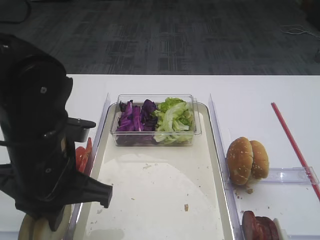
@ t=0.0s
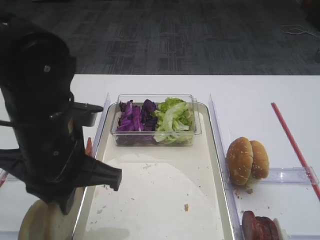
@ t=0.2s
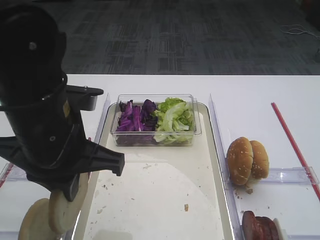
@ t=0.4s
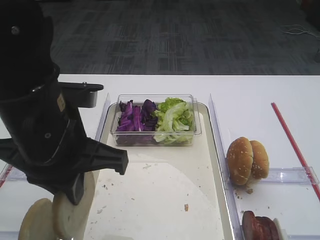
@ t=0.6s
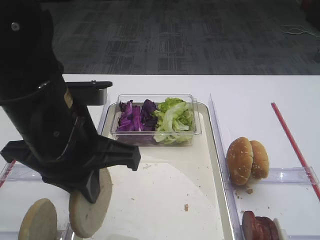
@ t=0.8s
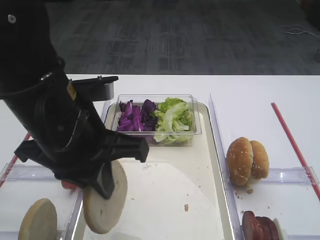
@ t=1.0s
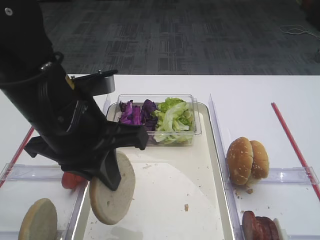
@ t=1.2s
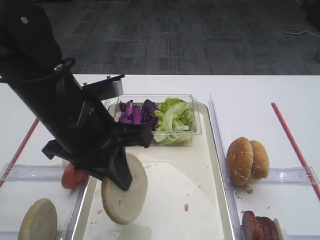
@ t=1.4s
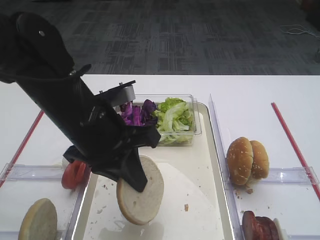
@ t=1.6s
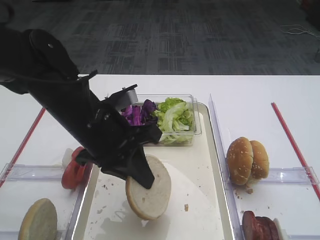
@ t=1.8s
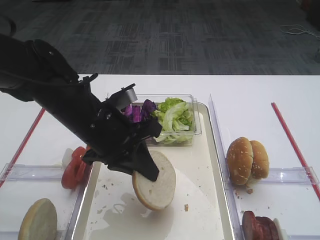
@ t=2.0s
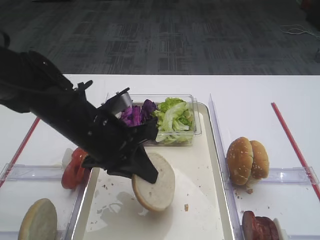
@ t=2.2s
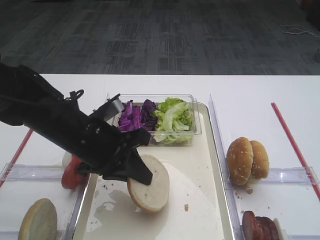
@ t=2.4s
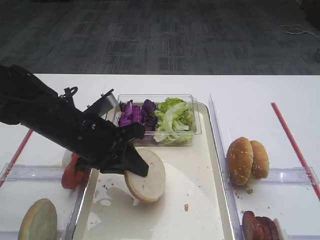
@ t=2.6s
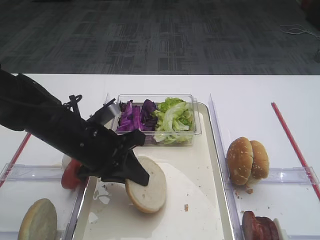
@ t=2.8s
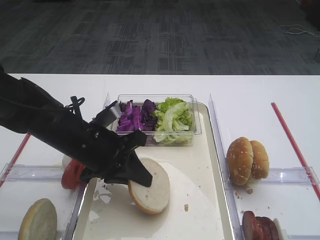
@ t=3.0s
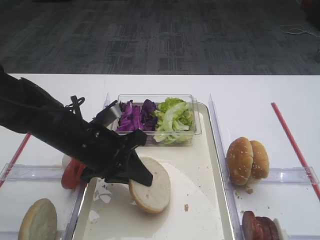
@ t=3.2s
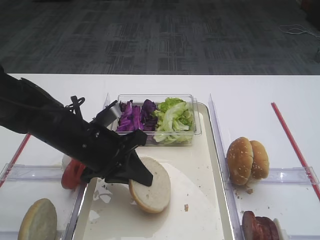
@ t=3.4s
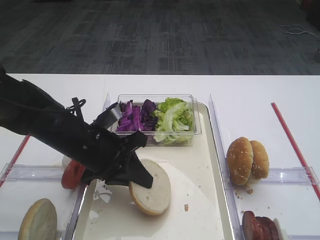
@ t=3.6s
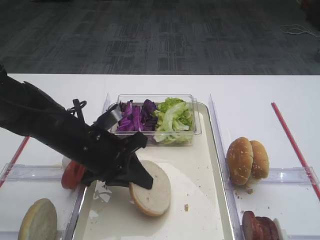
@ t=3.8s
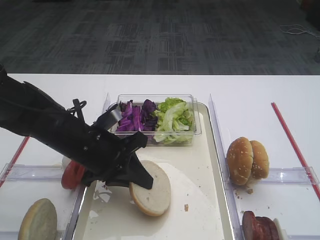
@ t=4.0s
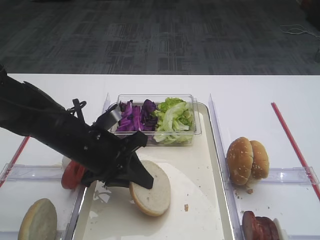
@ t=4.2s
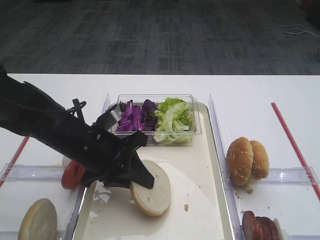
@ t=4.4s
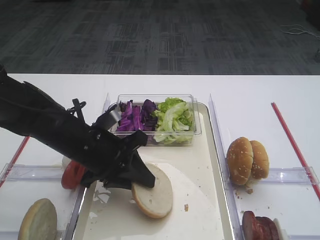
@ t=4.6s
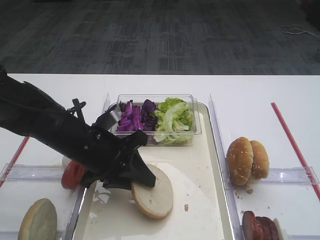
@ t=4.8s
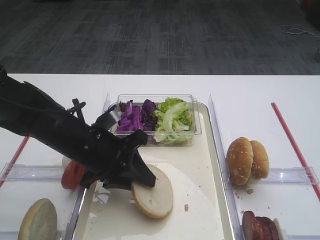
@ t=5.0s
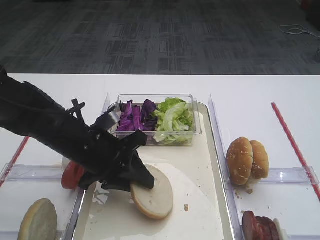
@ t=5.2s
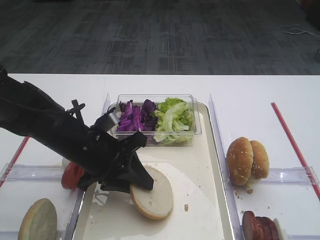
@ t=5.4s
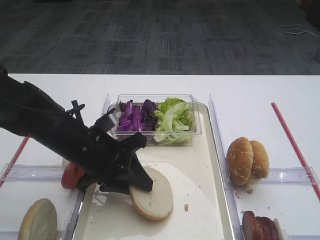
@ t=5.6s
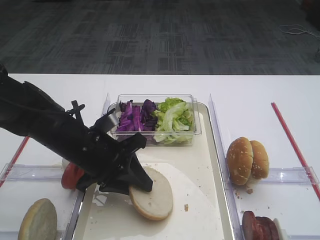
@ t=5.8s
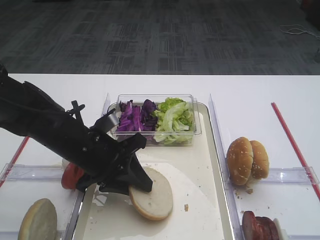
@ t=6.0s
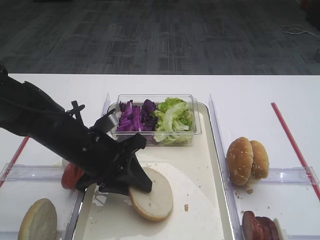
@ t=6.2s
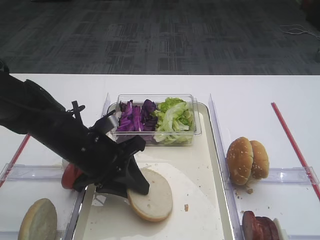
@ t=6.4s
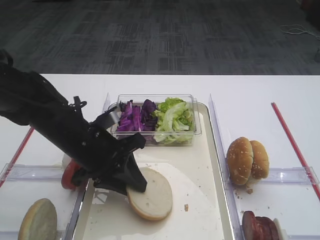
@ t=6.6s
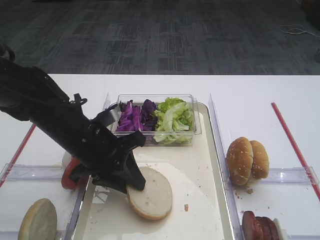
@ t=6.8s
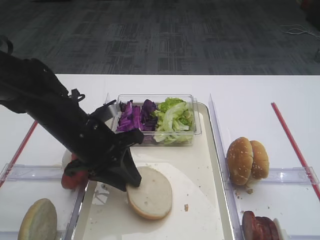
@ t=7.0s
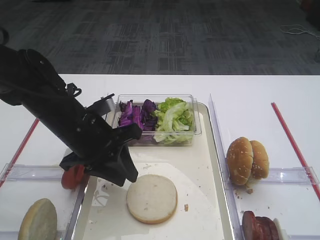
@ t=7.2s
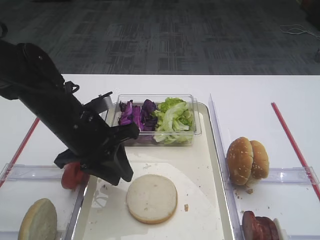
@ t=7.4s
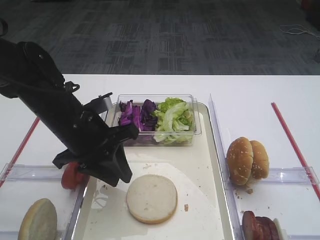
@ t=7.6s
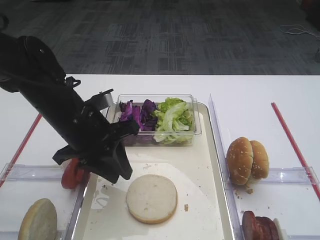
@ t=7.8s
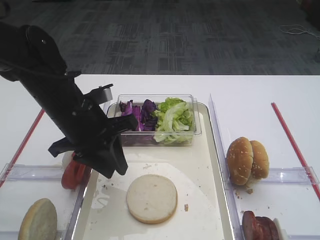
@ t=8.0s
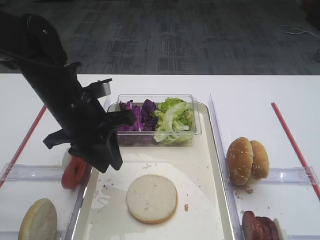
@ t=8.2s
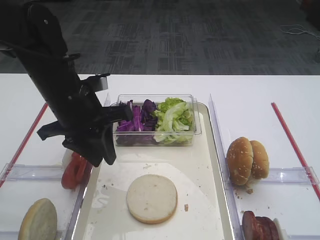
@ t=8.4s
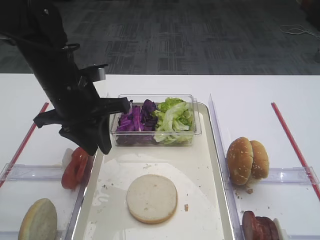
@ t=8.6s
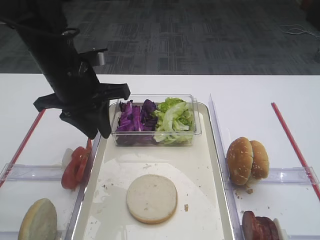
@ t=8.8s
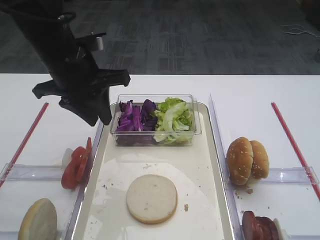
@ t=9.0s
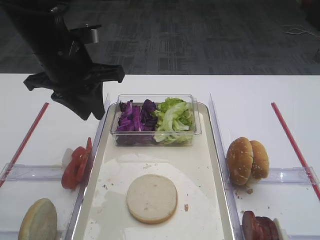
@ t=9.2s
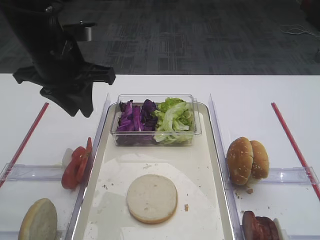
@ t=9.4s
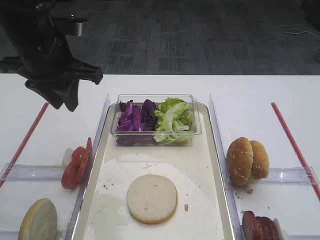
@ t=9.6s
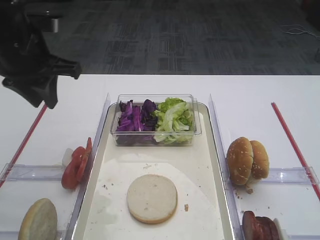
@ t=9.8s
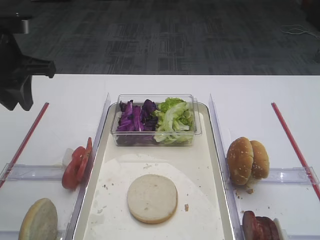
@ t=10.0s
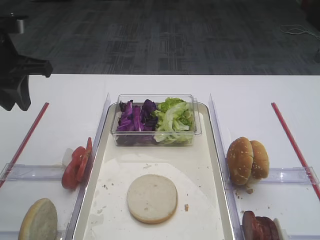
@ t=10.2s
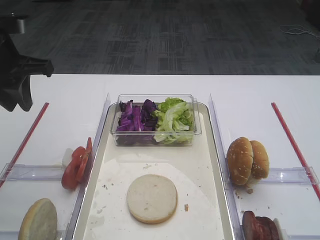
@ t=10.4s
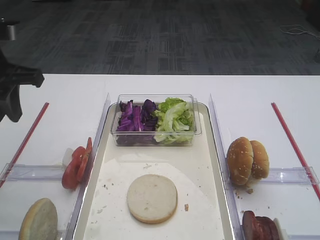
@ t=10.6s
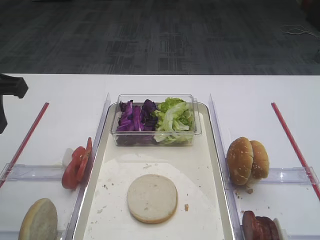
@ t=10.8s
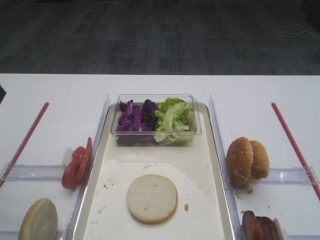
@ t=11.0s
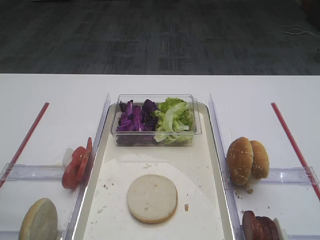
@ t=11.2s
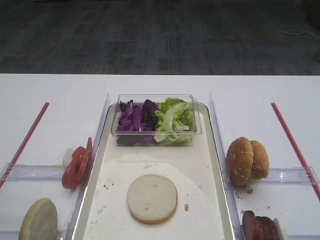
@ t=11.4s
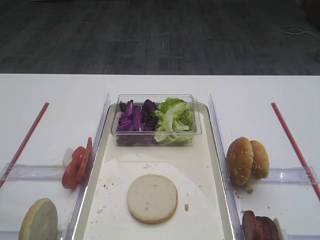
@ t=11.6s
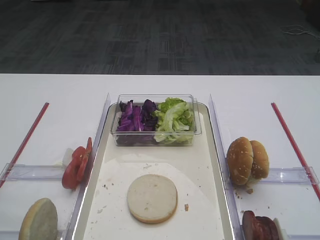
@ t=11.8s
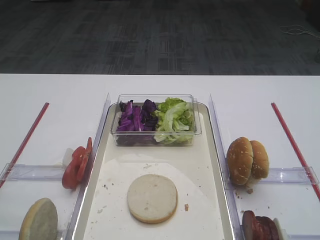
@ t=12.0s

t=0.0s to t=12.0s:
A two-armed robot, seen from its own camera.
Step, t=0.8s to t=7.8s: Place the bread slice on the tray with the left gripper.
t=0.0s to t=1.6s: The left gripper changes place by roughly 5 cm.
t=1.6s to t=3.0s: The left gripper moves downward, about 10 cm.
t=3.0s to t=4.4s: The two grippers keep their place.
t=4.4s to t=6.0s: Neither gripper changes place.
t=6.0s to t=7.6s: The grippers make only small movements.
t=7.6s to t=9.0s: The left gripper heads upward, covering some 10 cm.
t=9.0s to t=10.4s: The left gripper moves to the left, roughly 10 cm.
t=10.4s to t=12.0s: The left gripper travels backward by some 30 cm.

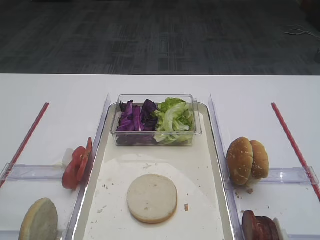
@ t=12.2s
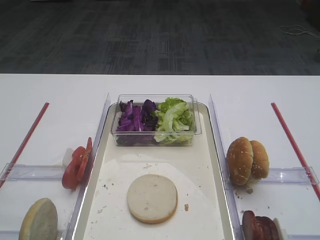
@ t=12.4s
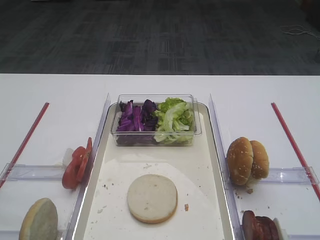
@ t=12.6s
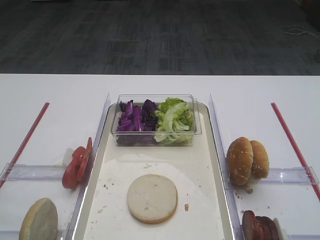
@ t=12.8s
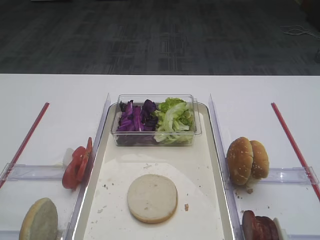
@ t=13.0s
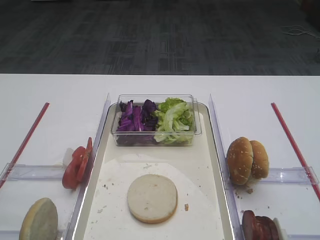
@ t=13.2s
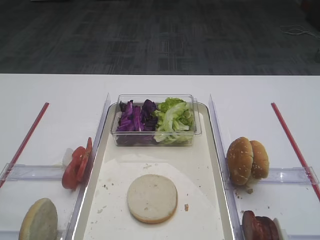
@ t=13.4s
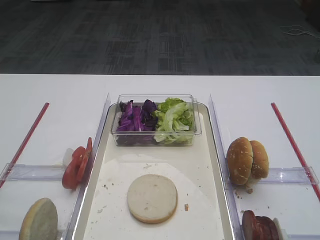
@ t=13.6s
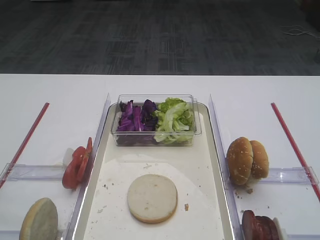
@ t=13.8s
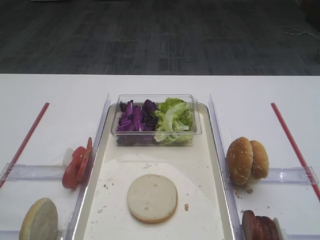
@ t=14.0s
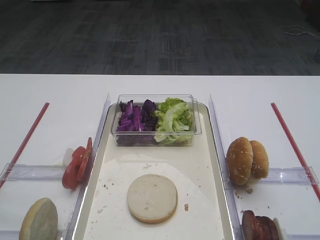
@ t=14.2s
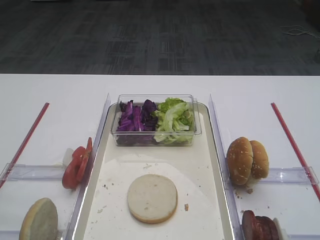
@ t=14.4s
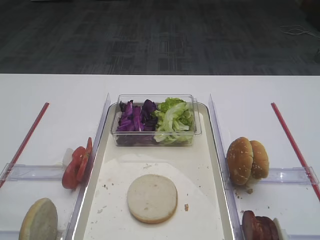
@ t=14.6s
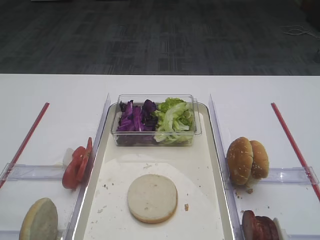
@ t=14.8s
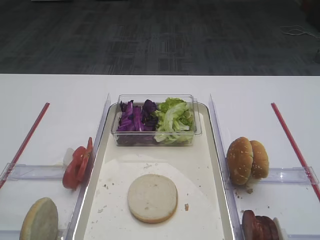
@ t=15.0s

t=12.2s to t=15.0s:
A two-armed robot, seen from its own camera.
t=13.6s to t=15.0s: Both grippers stay put.
